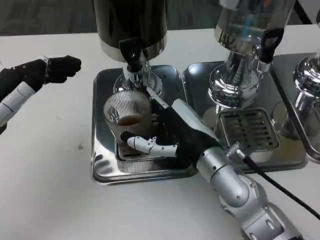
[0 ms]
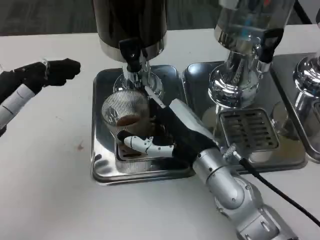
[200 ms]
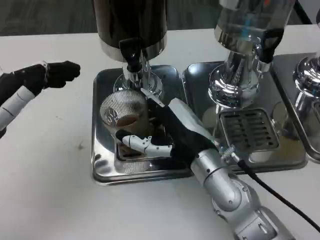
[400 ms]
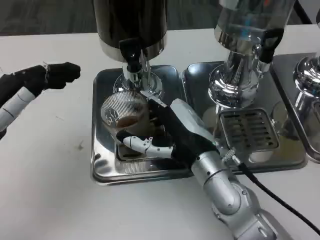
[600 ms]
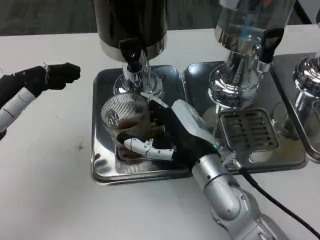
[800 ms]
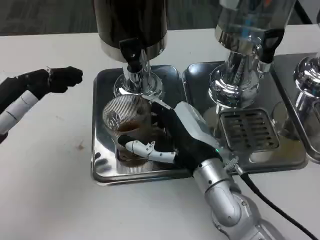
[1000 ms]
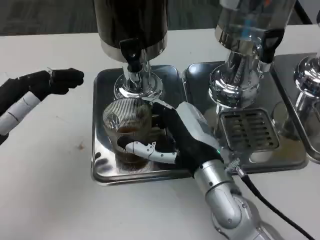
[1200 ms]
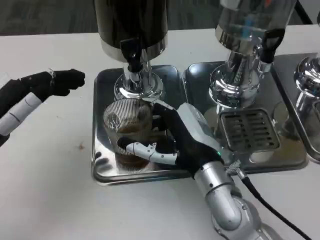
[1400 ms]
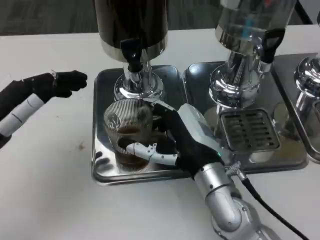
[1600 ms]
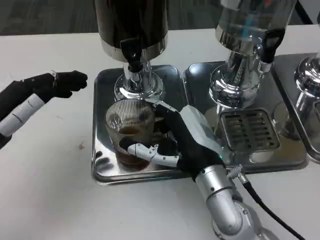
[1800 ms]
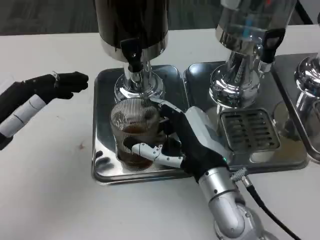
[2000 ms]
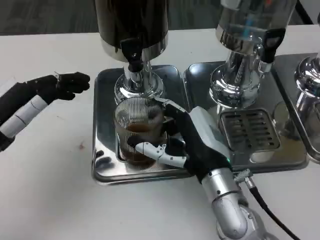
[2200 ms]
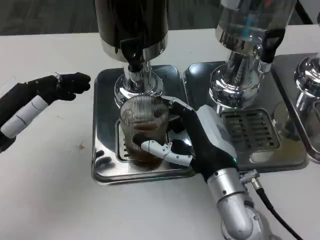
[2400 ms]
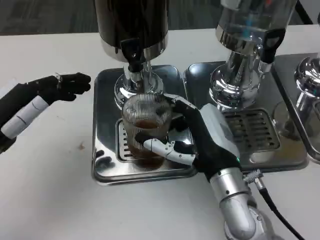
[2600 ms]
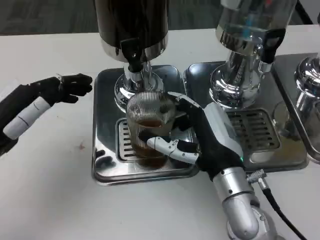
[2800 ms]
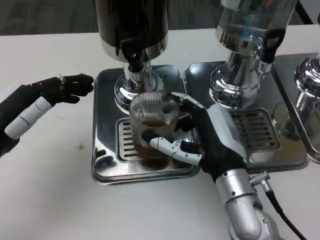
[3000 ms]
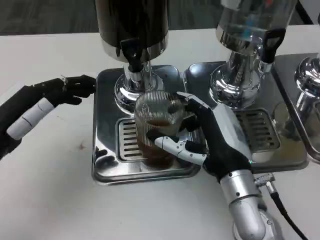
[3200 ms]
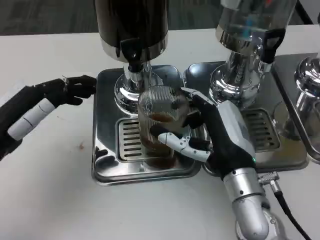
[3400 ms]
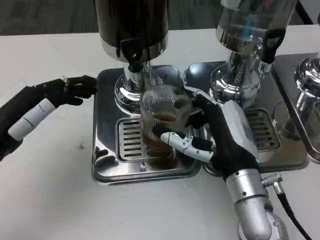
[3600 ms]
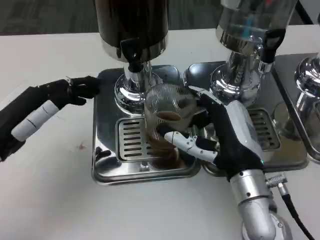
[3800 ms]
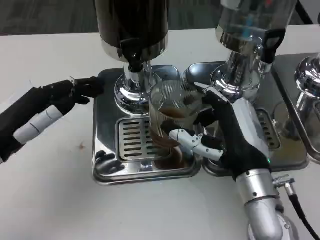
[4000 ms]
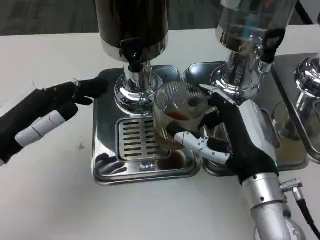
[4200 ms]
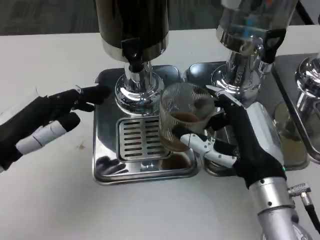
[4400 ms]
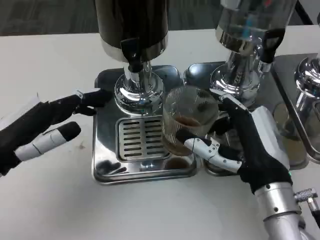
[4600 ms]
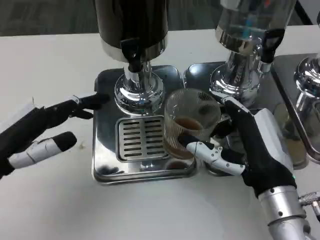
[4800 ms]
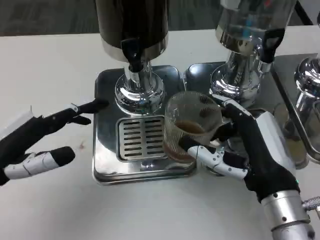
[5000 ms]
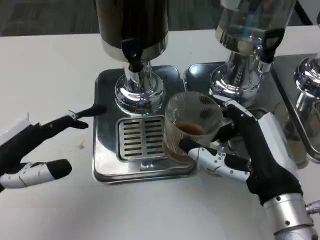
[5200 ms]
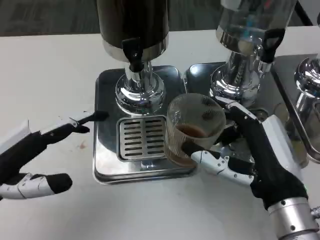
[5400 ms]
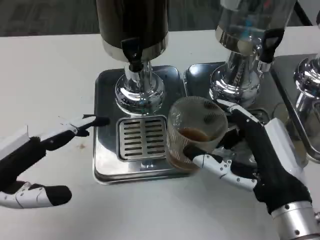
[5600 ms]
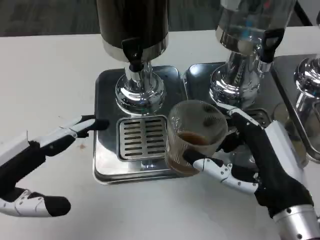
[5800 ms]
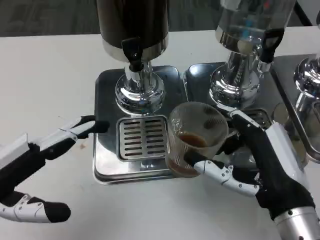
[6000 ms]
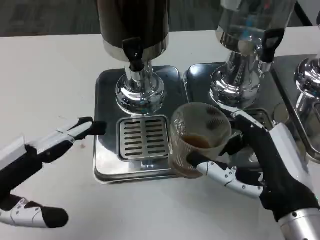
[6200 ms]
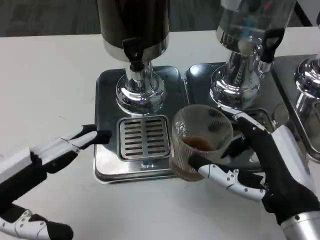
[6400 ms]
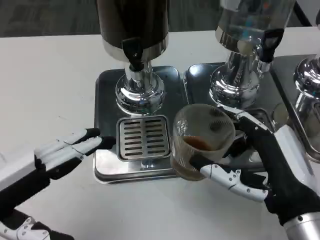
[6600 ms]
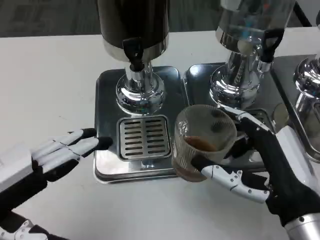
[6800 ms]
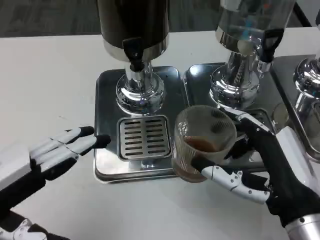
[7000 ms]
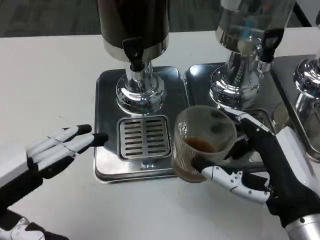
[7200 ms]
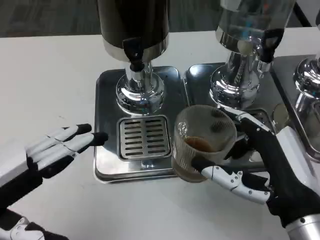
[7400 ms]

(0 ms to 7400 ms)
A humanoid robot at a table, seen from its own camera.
Task of the whole recording: Grasp the cup under the faucet to collect the drink, then remove the cup.
0 ms - 1400 ms: The hands stay close to where they were, moving slightly.
4400 ms - 6000 ms: The left hand travels backward by roughly 5 cm. Meanwhile the right hand moves some 5 cm.
6000 ms - 7400 ms: The hands move only a little.

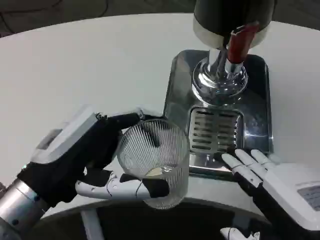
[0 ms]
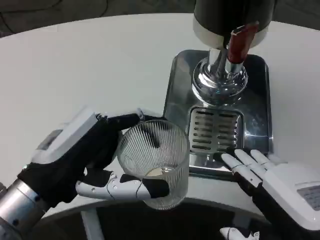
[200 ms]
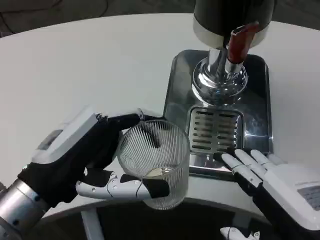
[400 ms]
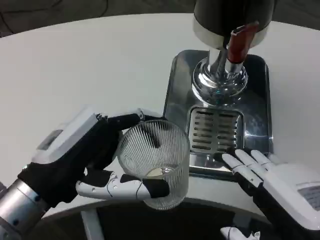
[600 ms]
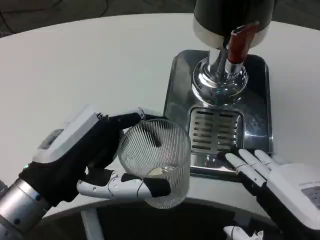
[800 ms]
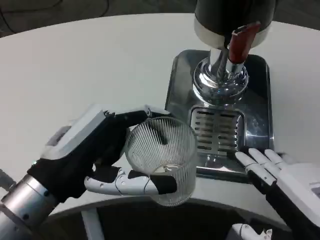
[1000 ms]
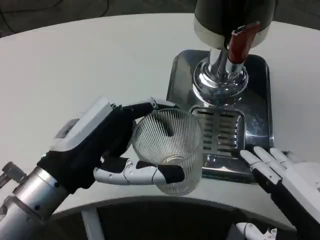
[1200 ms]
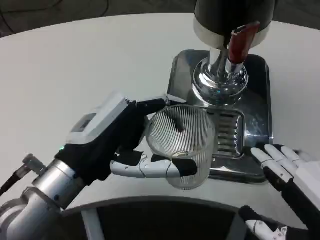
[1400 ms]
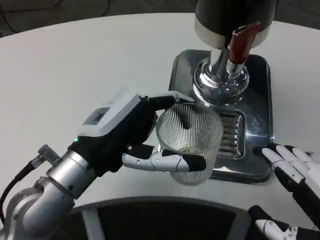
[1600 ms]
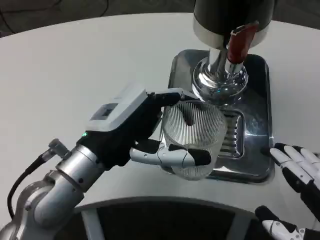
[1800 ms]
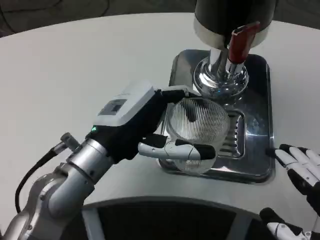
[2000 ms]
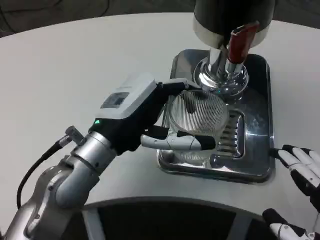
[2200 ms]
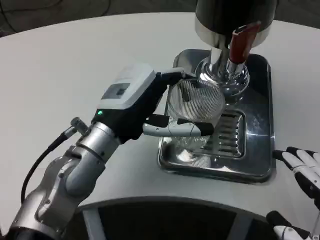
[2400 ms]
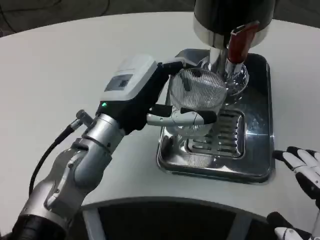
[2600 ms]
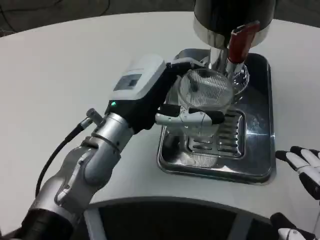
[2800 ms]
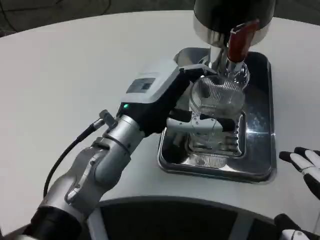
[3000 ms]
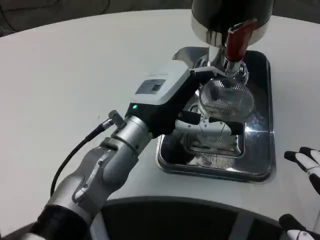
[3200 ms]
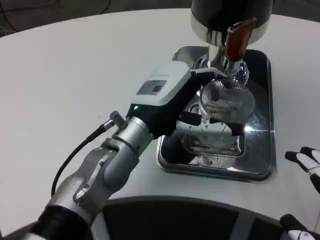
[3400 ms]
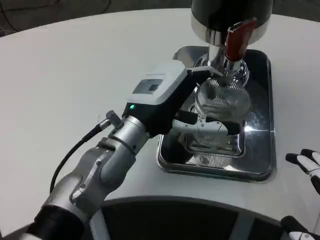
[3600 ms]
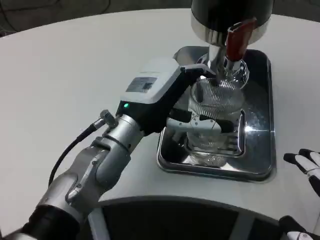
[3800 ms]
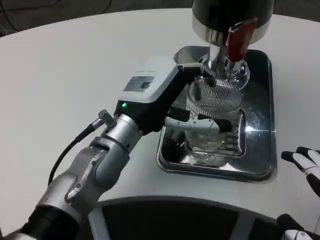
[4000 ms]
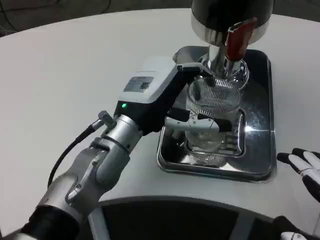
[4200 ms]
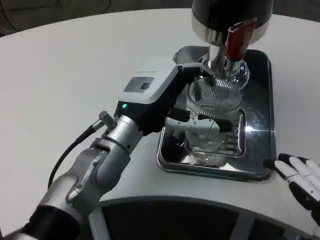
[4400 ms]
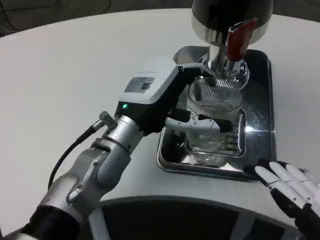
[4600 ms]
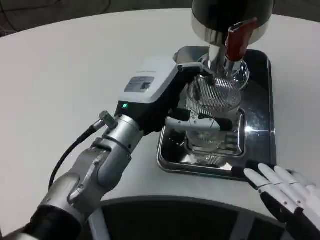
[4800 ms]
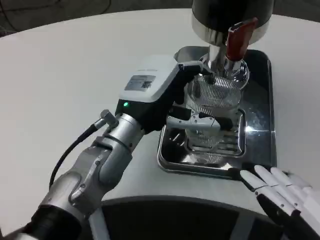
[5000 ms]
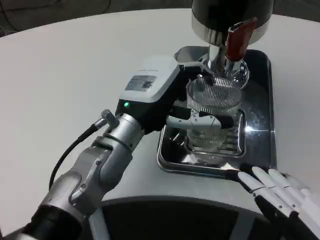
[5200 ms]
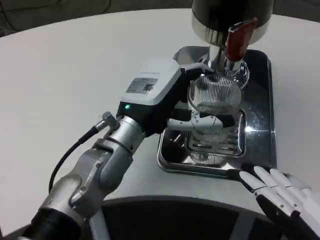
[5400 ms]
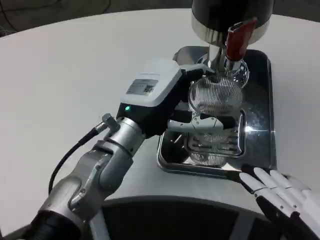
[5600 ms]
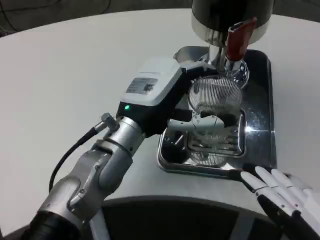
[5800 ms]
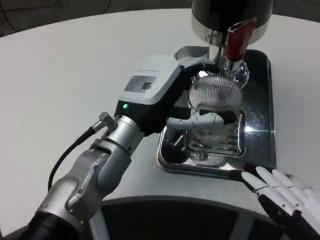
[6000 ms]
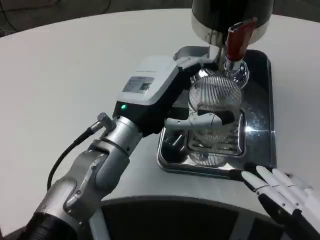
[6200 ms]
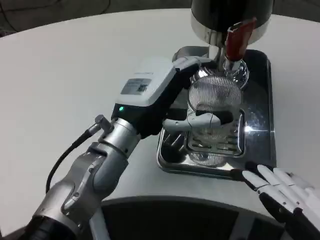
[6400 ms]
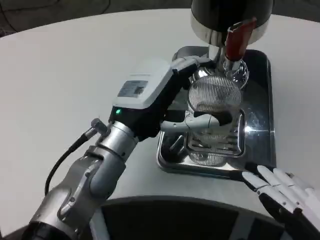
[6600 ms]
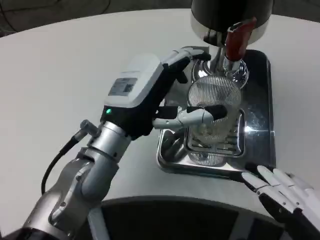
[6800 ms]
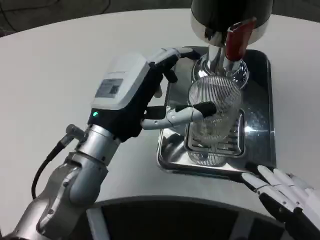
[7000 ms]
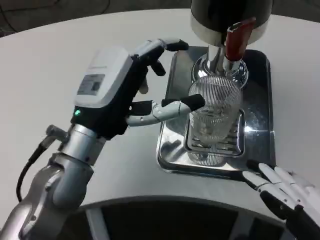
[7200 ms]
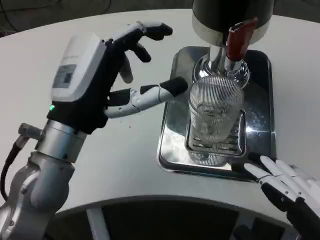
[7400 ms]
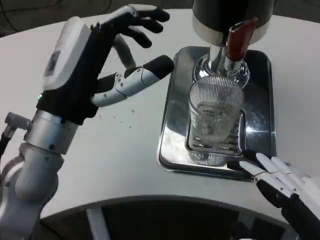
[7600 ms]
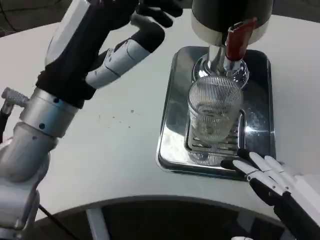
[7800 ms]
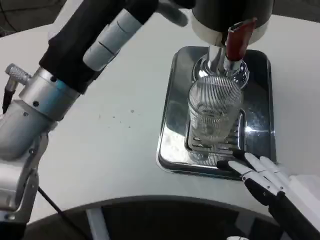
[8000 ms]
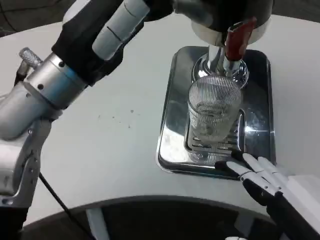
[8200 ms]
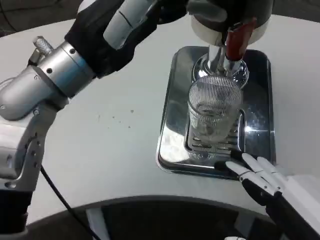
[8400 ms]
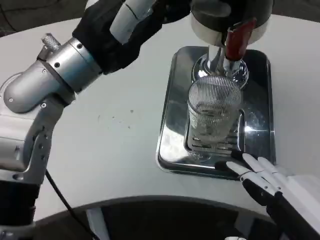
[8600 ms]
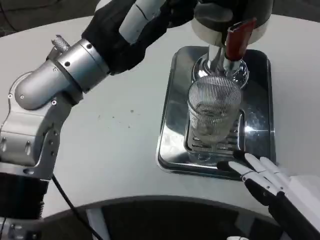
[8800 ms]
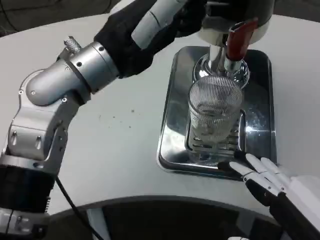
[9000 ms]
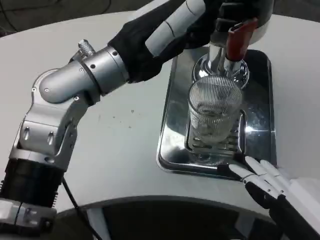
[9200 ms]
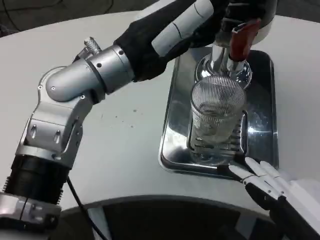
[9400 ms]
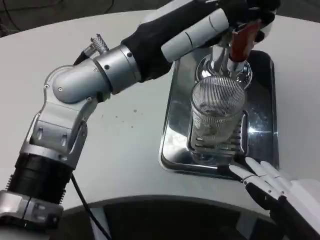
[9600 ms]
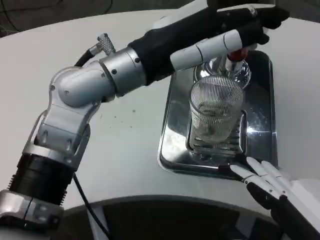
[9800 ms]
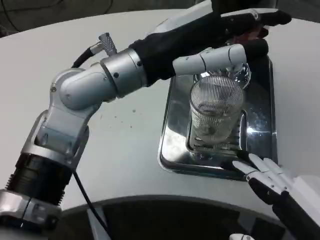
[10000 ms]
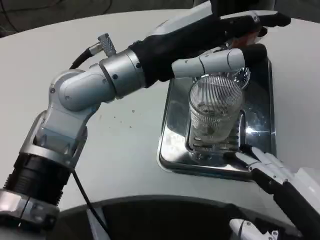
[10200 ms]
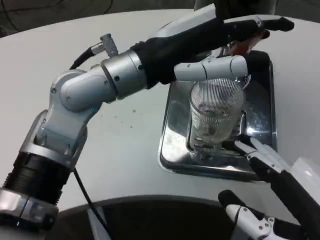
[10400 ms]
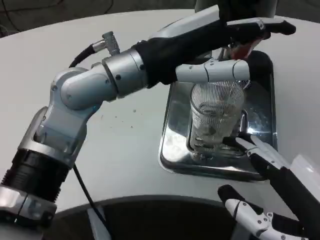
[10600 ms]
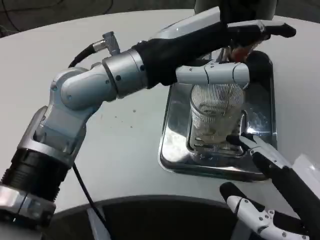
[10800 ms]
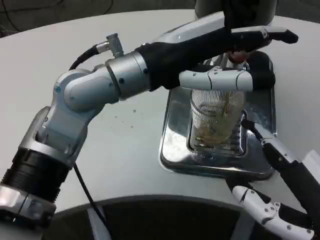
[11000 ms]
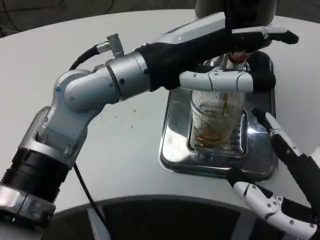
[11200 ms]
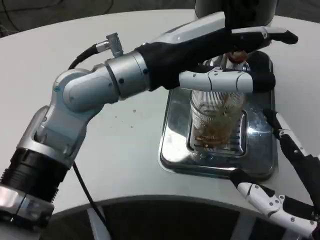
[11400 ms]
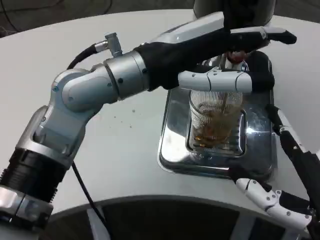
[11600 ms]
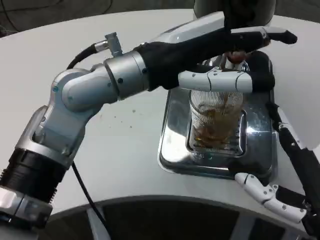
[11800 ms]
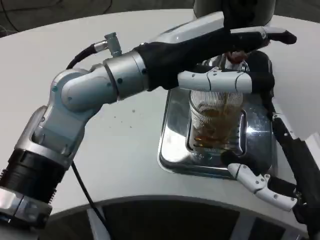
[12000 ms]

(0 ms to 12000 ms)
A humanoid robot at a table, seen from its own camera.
Task of the whole recording: Grasp the cup under the faucet to collect the drink, then remove the cup.
0 ms - 1600 ms: The left hand changes place by roughly 5 cm.
1600 ms - 3000 ms: The left hand moves forward and to the right, about 10 cm.
3000 ms - 6000 ms: The hands stay close to where they were, moving slightly.
6000 ms - 7600 ms: The left hand shifts about 10 cm to the left and backward.
7600 ms - 9000 ms: The left hand travels upward and forward by roughly 10 cm.
10400 ms - 12000 ms: The right hand heads forward, covering roughly 5 cm.

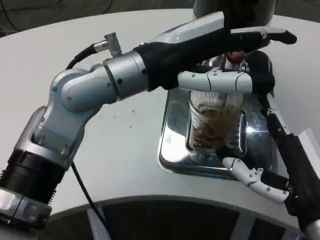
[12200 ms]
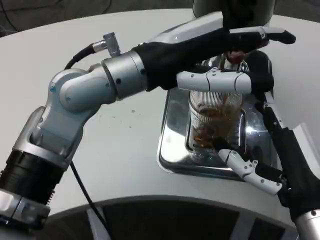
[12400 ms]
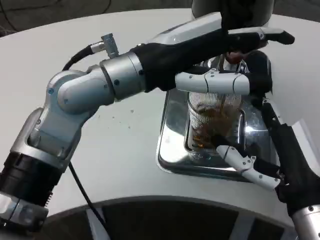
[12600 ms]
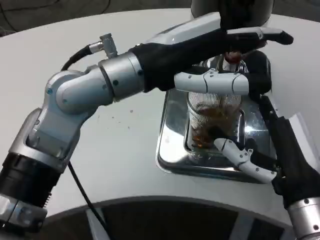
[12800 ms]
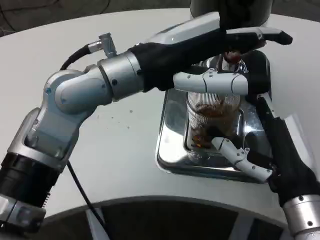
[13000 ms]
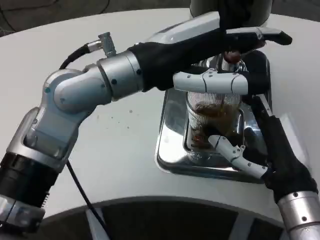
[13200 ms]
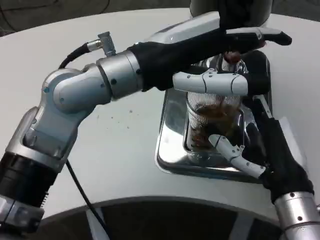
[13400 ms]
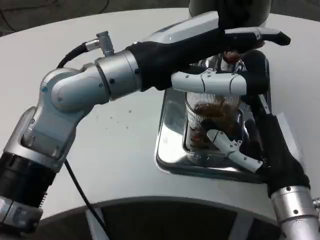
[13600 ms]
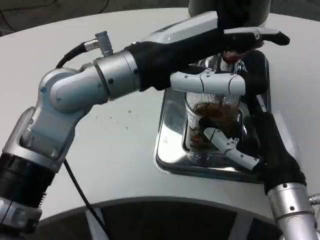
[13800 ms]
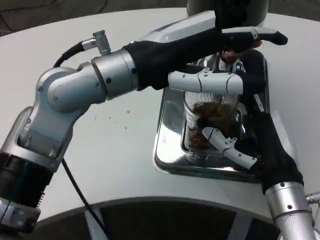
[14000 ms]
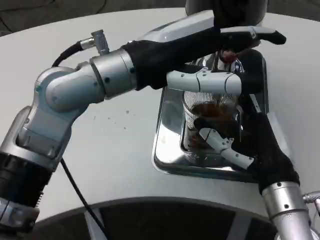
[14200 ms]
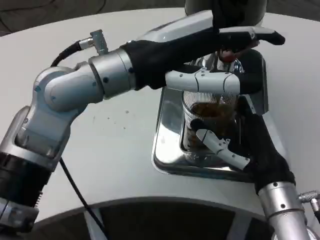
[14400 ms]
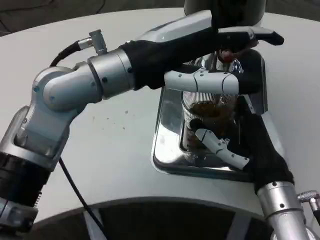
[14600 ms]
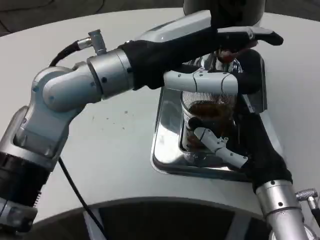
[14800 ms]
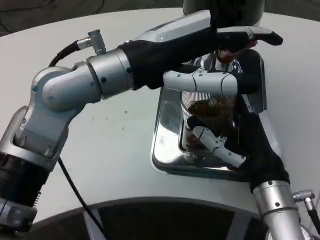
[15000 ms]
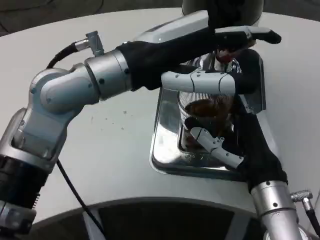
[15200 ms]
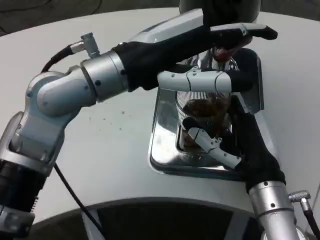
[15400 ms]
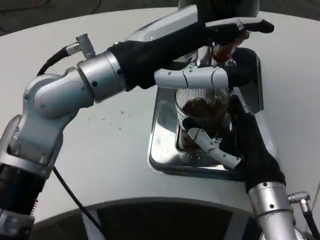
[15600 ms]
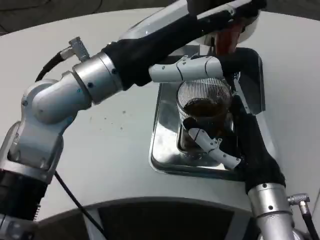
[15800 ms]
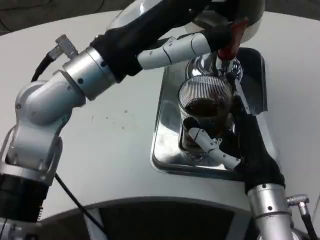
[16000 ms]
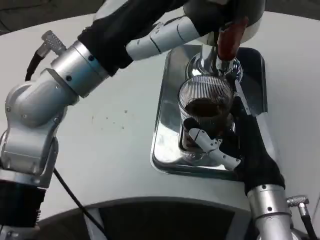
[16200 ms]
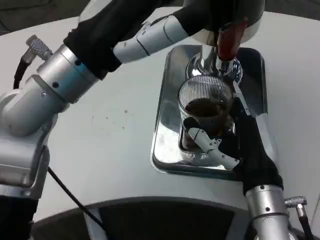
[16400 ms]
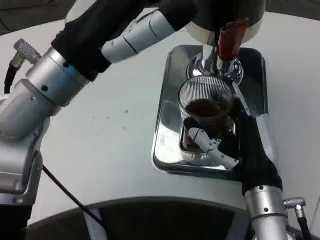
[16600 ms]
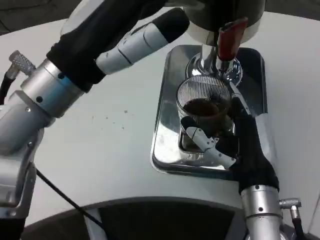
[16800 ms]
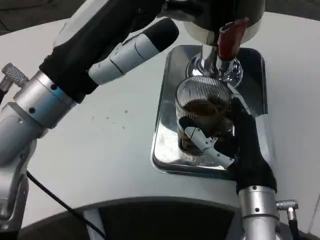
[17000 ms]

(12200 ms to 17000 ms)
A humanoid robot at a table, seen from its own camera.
Task of the whole recording: Grasp the cup under the faucet to collect the drink, then remove the cup.
12200 ms - 13800 ms: The right hand is displaced forward by some 5 cm.
15400 ms - 17000 ms: The left hand moves about 5 cm.
